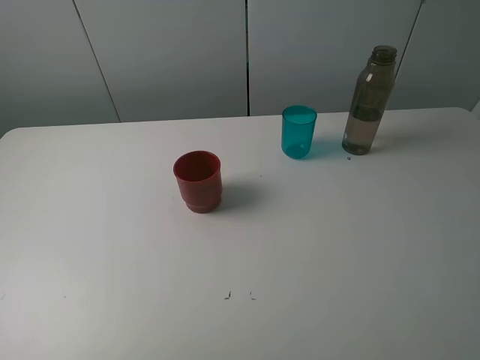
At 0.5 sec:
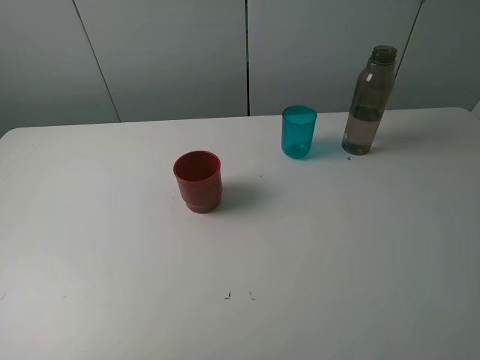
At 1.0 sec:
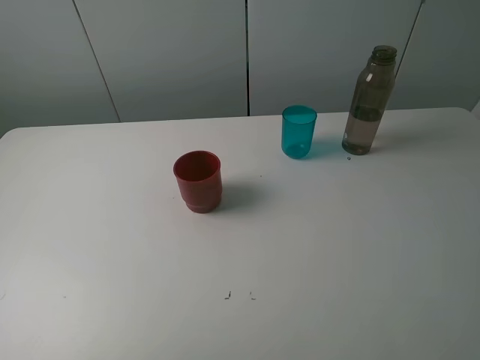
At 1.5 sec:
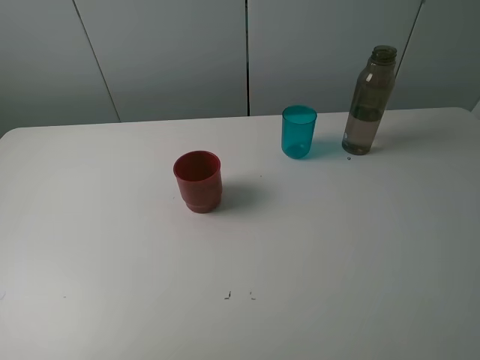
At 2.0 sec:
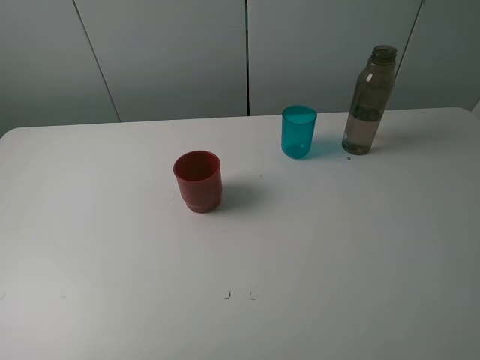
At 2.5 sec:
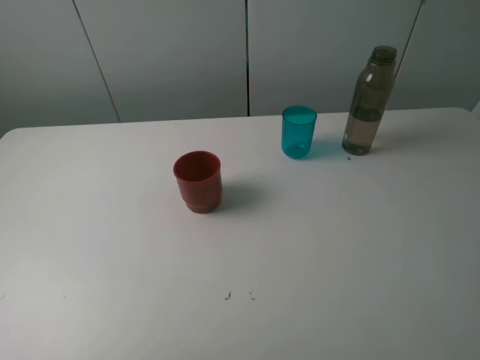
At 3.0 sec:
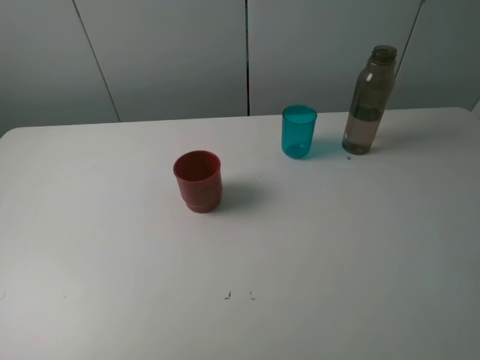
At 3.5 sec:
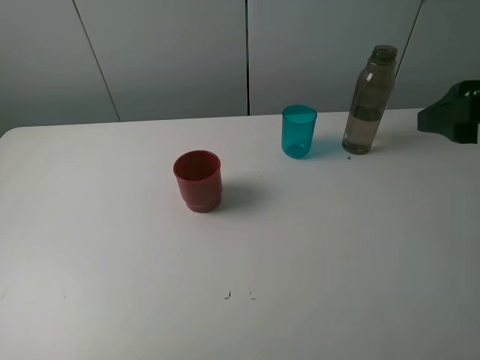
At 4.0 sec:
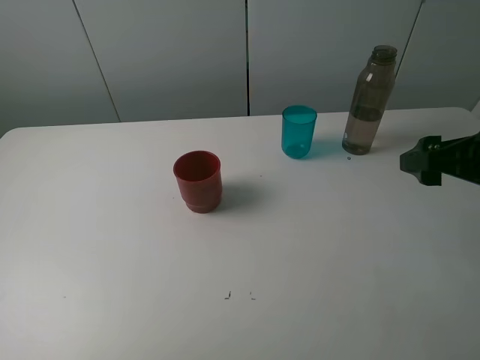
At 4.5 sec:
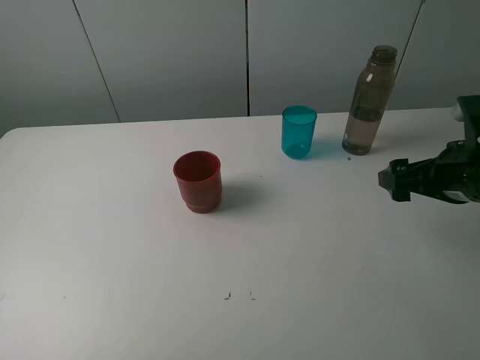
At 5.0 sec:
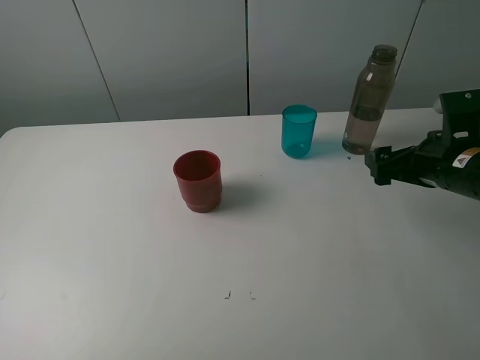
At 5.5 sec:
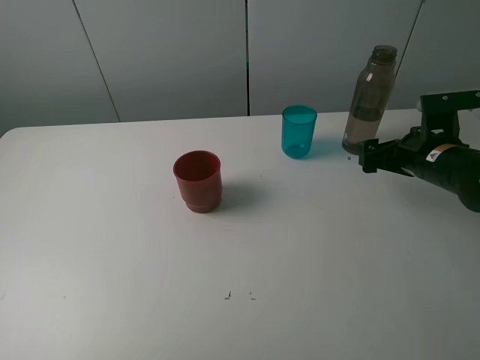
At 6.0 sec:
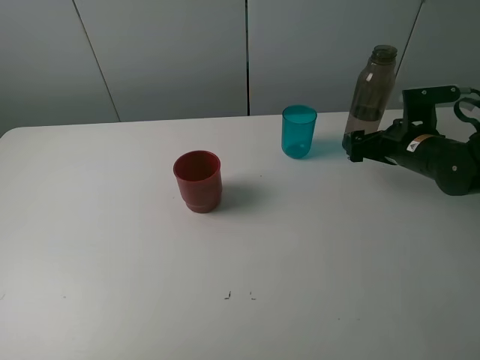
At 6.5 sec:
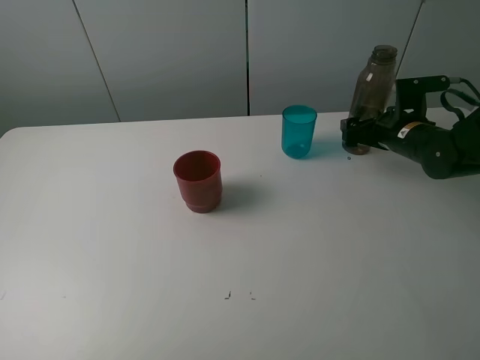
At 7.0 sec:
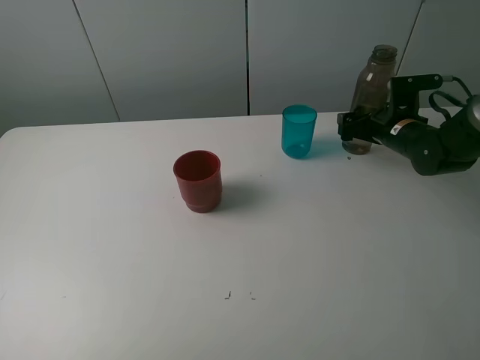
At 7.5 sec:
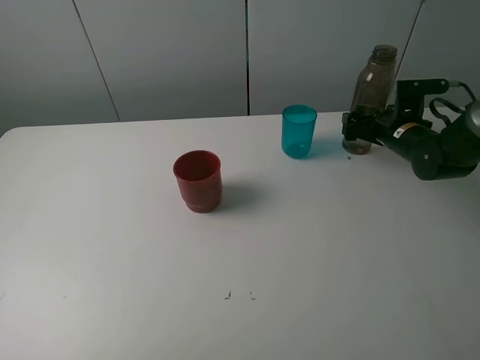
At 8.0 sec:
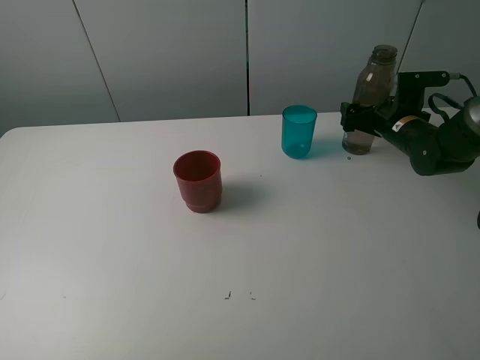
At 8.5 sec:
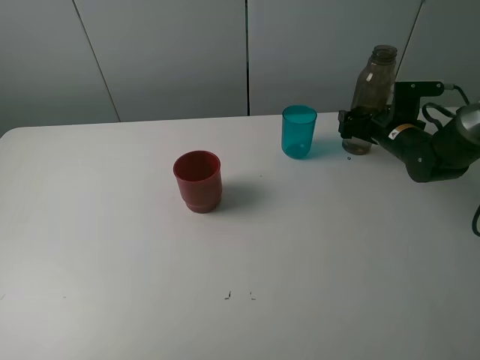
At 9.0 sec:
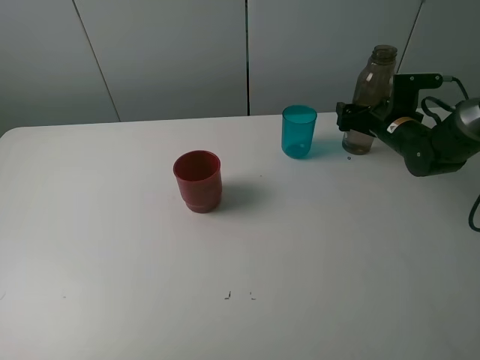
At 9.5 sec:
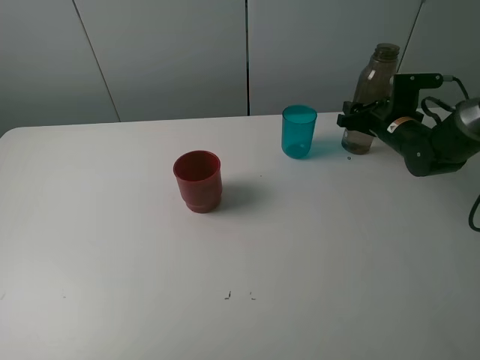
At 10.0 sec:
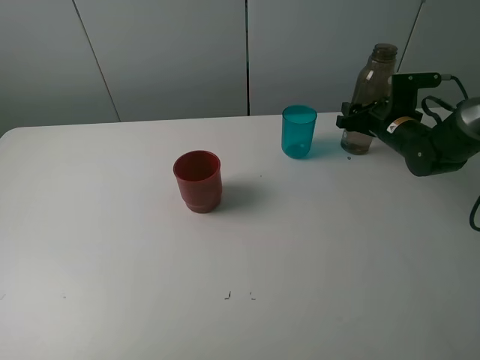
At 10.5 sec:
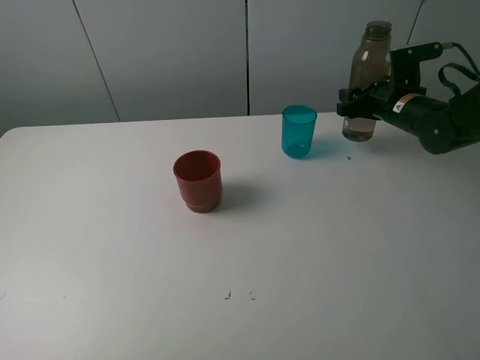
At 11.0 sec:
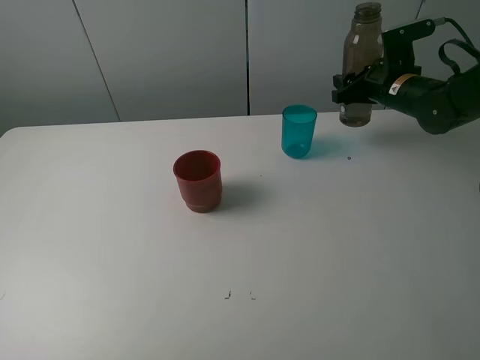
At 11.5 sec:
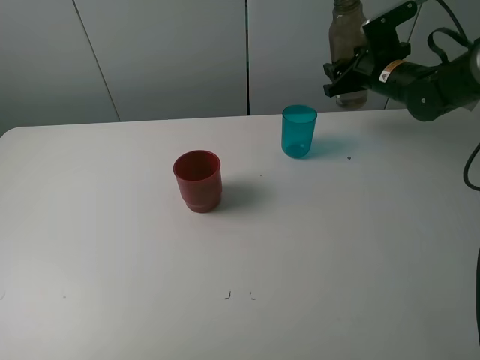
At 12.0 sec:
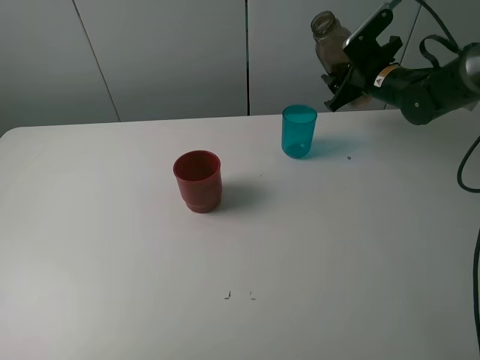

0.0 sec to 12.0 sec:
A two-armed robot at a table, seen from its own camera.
Task of the whole recording: pick up the bottle and pour water into the cup, then pick up the cup containing water and pour it into another cup.
Step, 0.0 sec to 9.5 sec: Grasp the brown bottle with the right gripper.
0.0 sec to 2.0 sec: Neither gripper changes place.
2.0 sec to 4.0 sec: The right gripper shifts approximately 20 cm forward.
4.0 sec to 6.0 sec: The right gripper is displaced forward and downward by about 20 cm.
6.0 sec to 8.0 sec: The right gripper moves forward, approximately 5 cm.
8.0 sec to 10.0 sec: The right gripper closes.
10.0 sec to 12.0 sec: The right gripper heads upward, covering approximately 5 cm.

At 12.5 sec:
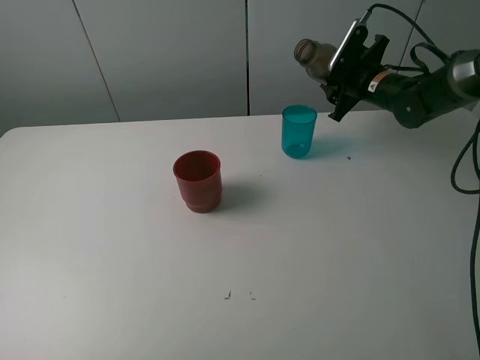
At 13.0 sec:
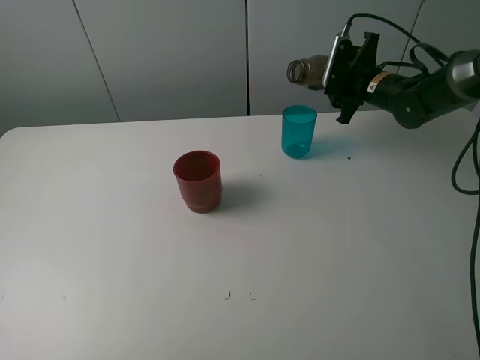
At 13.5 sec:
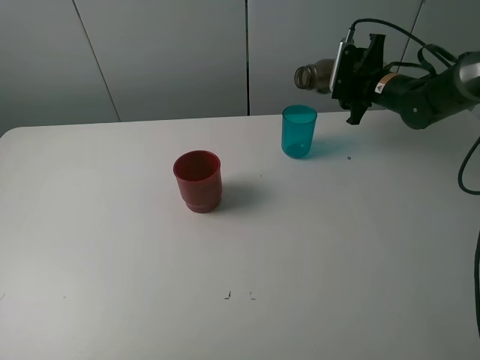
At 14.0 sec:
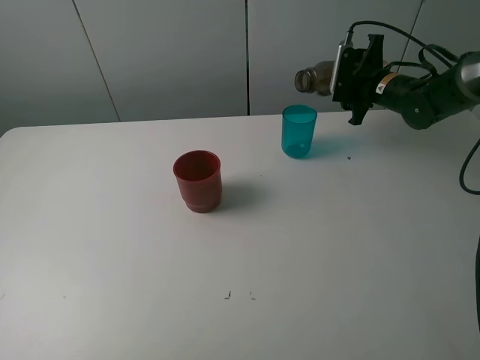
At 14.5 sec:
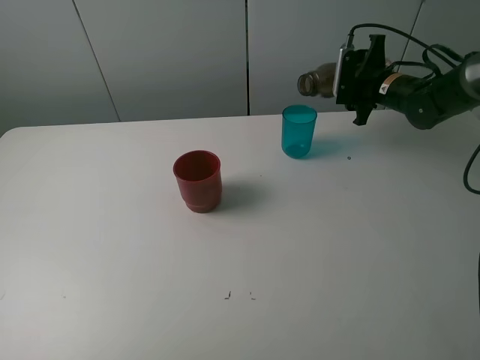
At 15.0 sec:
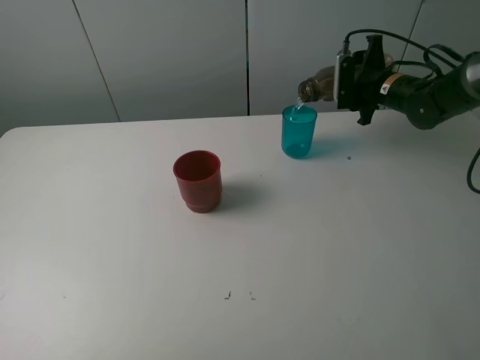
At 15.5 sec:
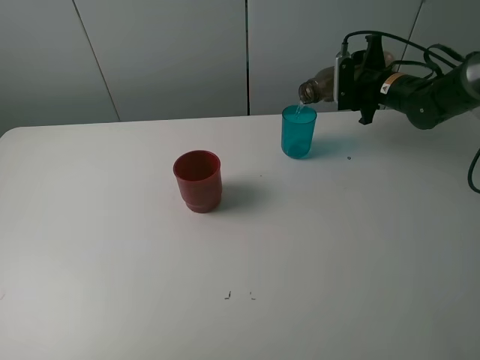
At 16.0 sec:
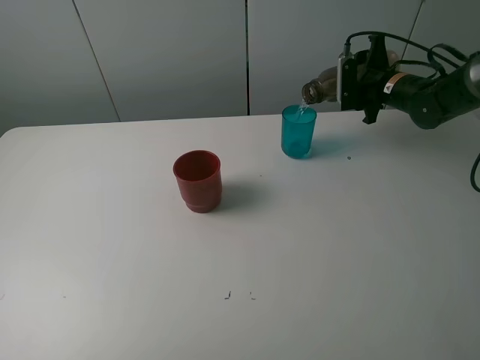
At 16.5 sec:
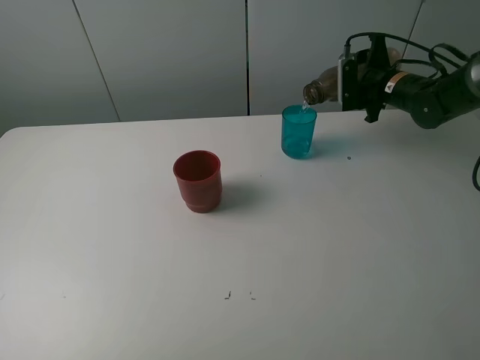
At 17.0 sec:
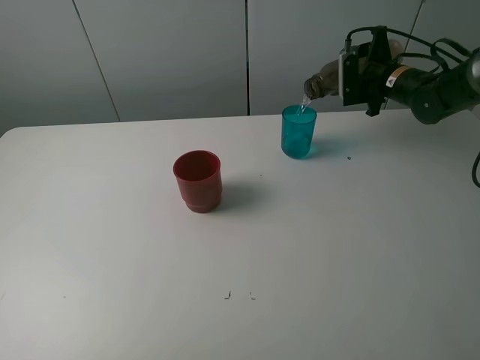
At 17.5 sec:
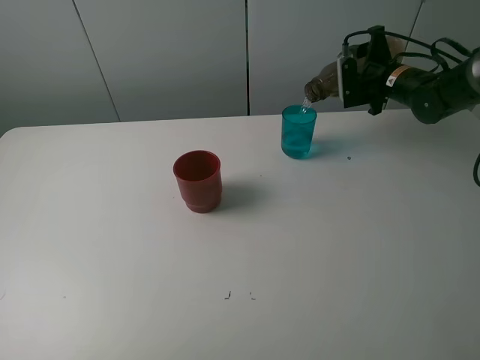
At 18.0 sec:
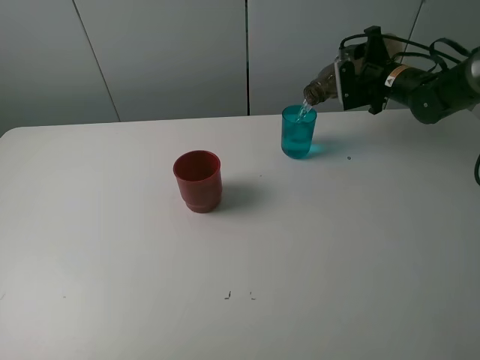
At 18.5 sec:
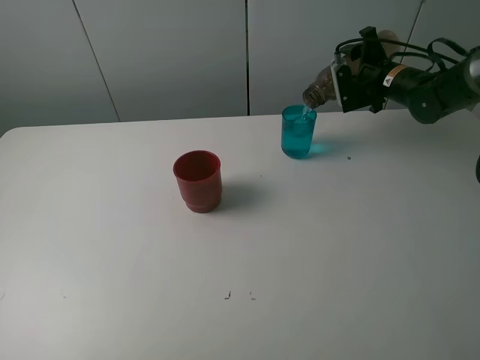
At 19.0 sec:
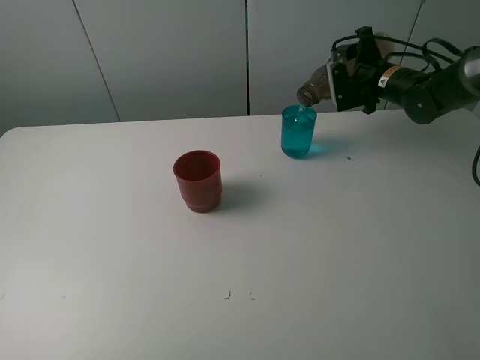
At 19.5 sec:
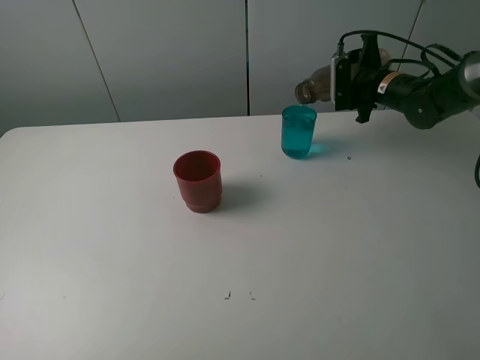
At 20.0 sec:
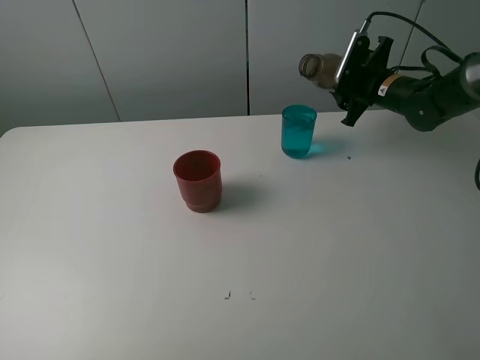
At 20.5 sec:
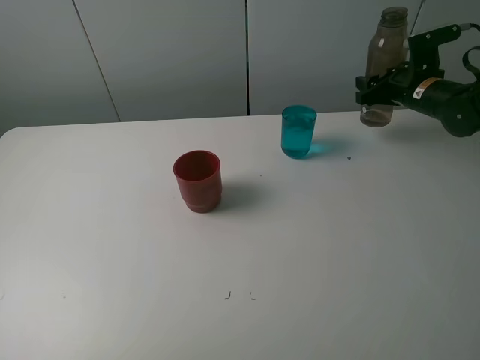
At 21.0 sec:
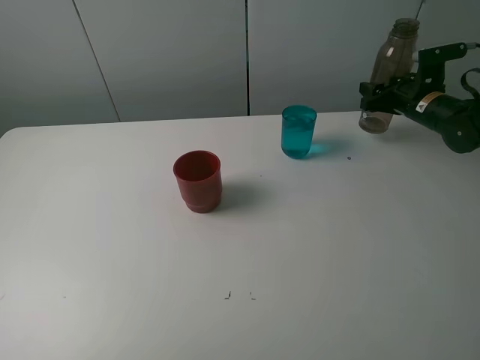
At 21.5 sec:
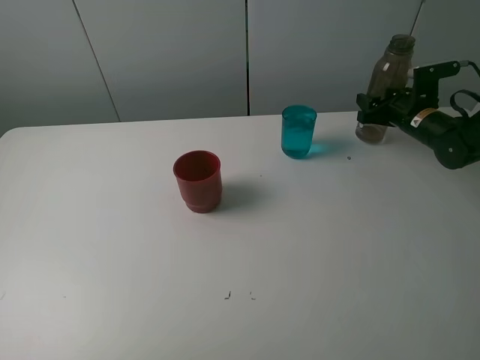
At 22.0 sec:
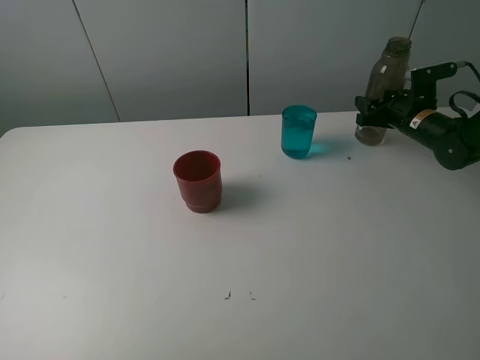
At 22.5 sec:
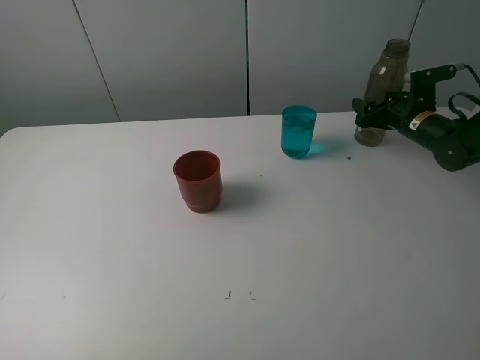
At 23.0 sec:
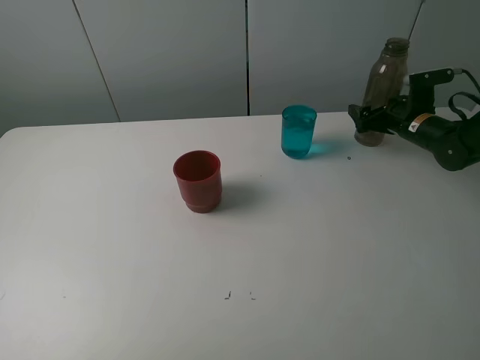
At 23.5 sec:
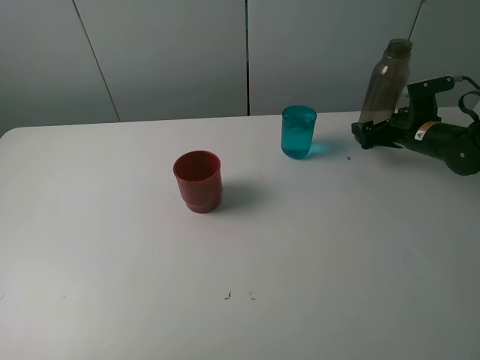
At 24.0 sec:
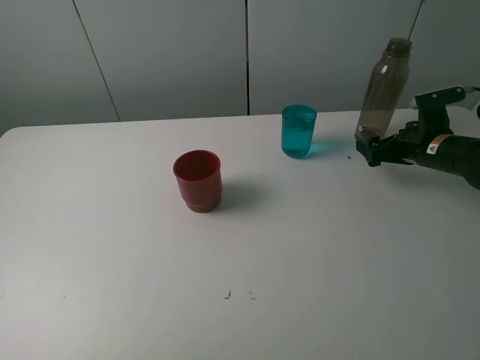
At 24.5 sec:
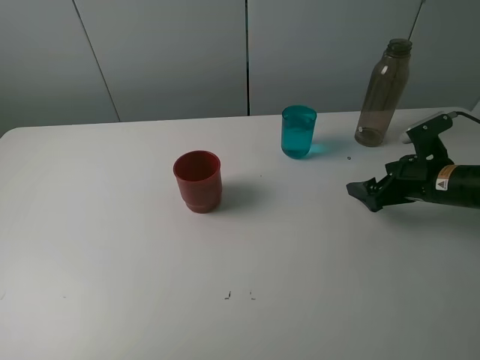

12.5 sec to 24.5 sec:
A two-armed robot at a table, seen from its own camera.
Task of the whole recording: pick up the bottle and pour water into the cup, then pick up the cup containing water and pour it into another cup.
Step, 12.5 sec to 19.5 sec: Pour water from brown bottle to blue cup with the right gripper.
Step, 20.0 sec to 22.5 sec: Place the brown bottle with the right gripper.
14.5 sec to 16.5 sec: The grippers stay close to where they were, moving slightly.
16.5 sec to 18.5 sec: The grippers move only a little.
18.5 sec to 20.5 sec: The right gripper shifts by roughly 5 cm.
20.5 sec to 22.5 sec: The right gripper shifts about 5 cm downward, and opens.
22.5 sec to 24.5 sec: The right gripper shifts roughly 15 cm backward, and opens its fingers.

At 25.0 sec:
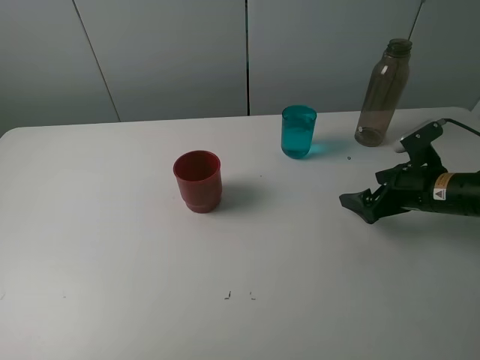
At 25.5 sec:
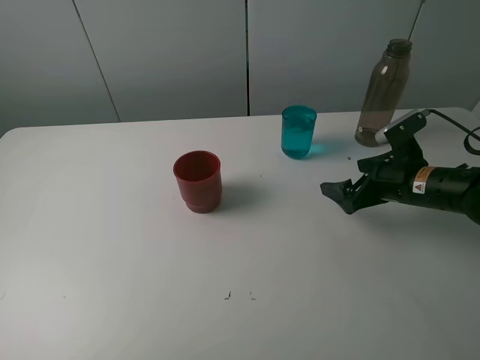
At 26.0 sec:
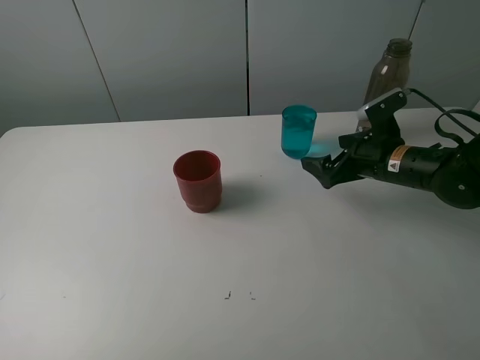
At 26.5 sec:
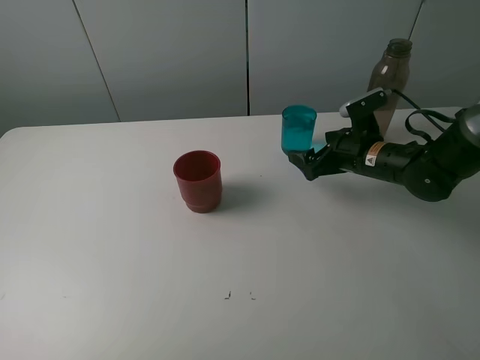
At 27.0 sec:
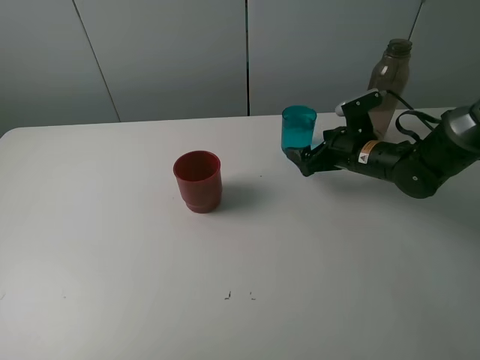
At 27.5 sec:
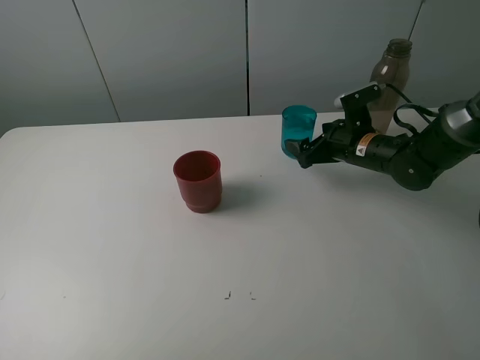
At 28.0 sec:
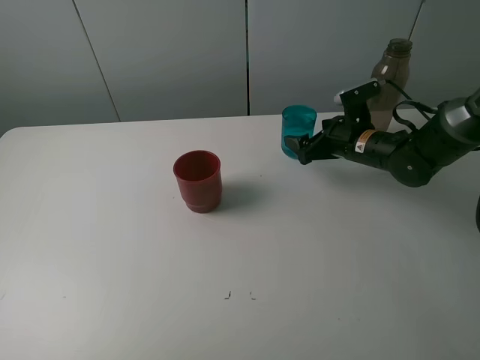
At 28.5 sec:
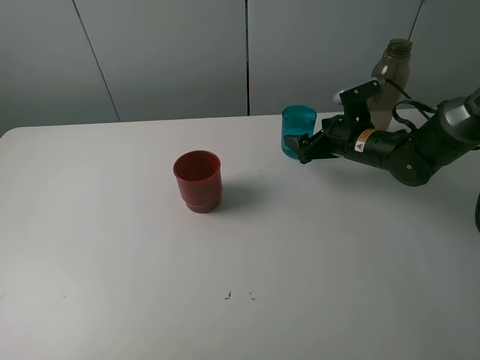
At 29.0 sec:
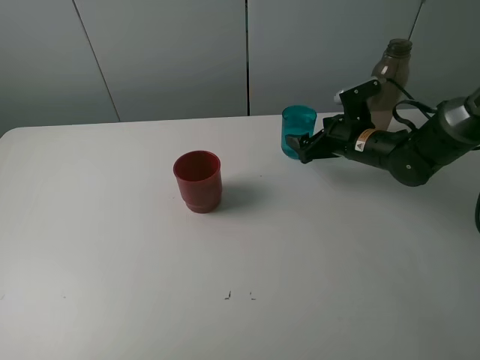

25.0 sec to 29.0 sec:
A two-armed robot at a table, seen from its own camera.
Task of the whole recording: pick up the bottle and pour water into the cup, then pick up the cup containing water and pour it into another cup.
25.0 sec to 27.0 sec: The right gripper goes approximately 10 cm forward and to the left.
27.0 sec to 29.0 sec: The grippers make only small movements.
